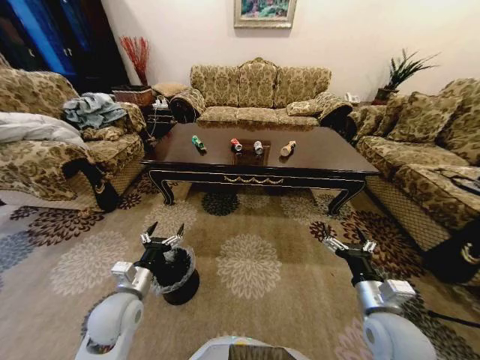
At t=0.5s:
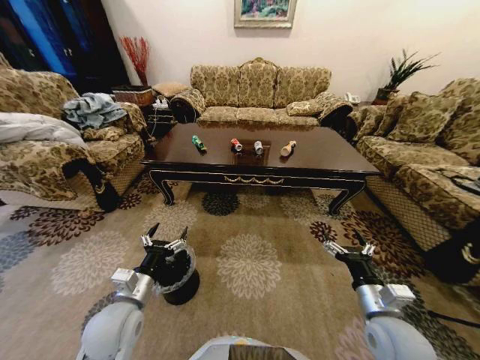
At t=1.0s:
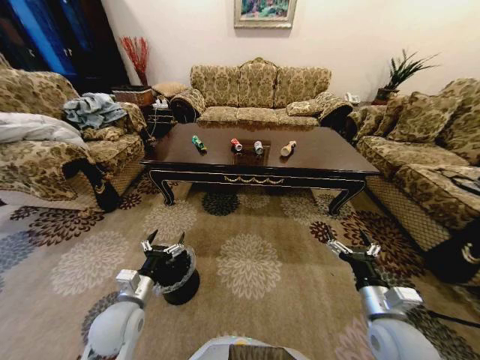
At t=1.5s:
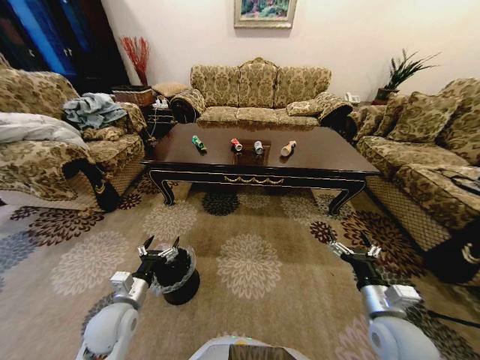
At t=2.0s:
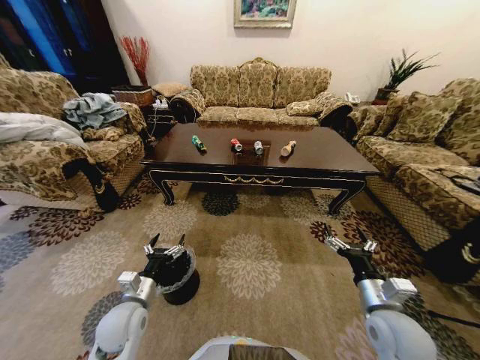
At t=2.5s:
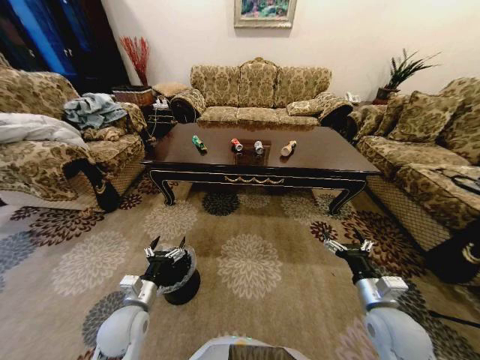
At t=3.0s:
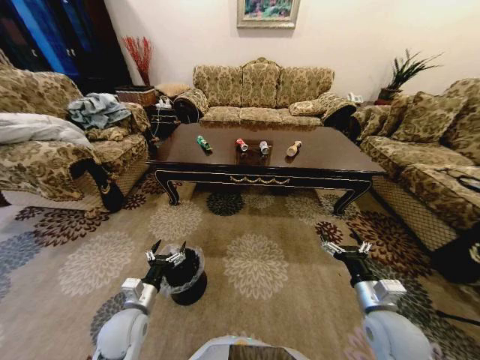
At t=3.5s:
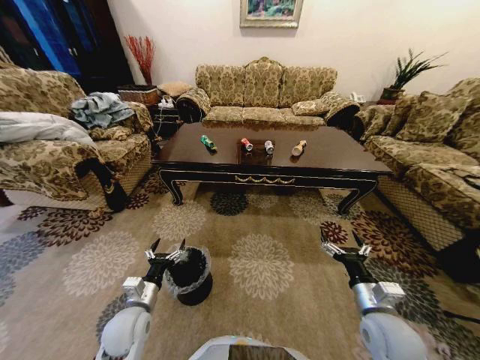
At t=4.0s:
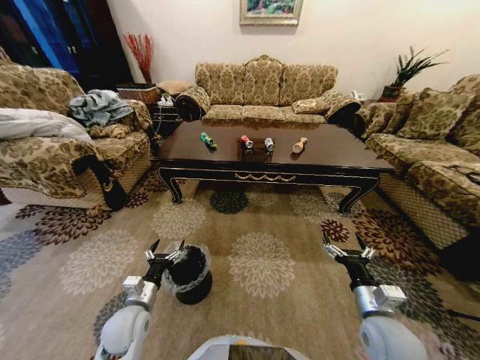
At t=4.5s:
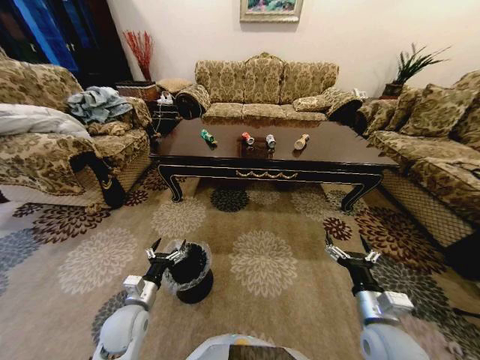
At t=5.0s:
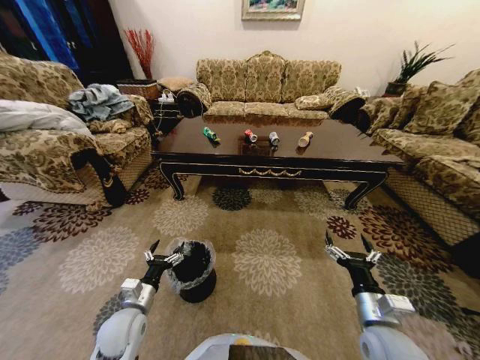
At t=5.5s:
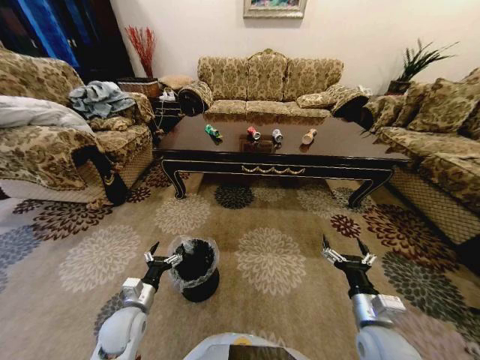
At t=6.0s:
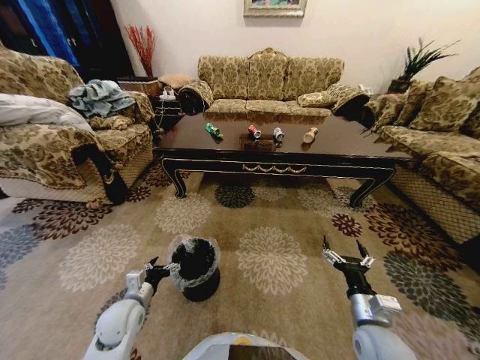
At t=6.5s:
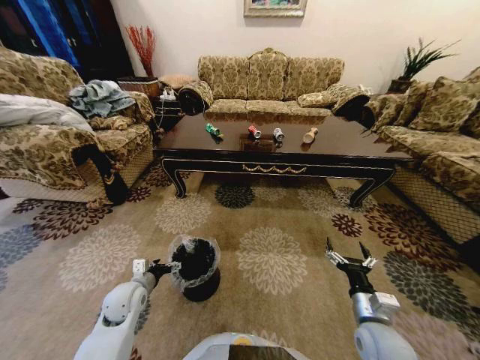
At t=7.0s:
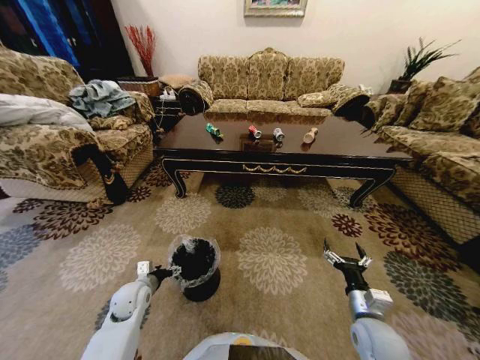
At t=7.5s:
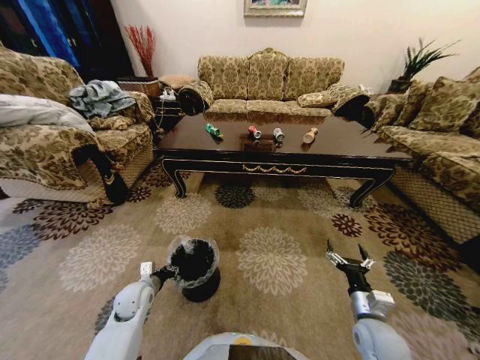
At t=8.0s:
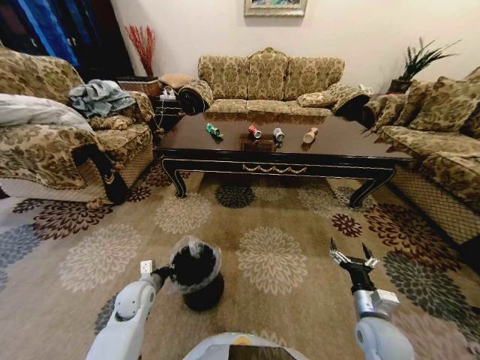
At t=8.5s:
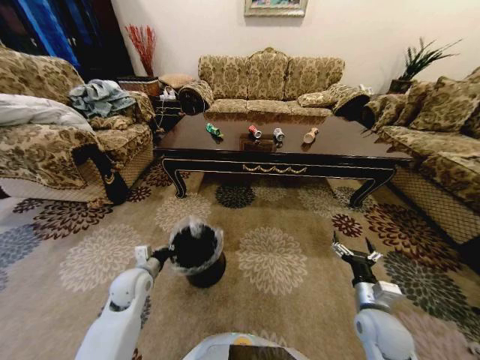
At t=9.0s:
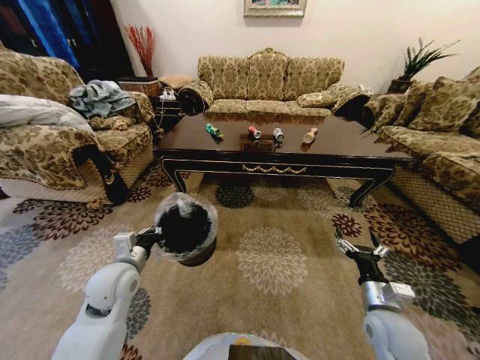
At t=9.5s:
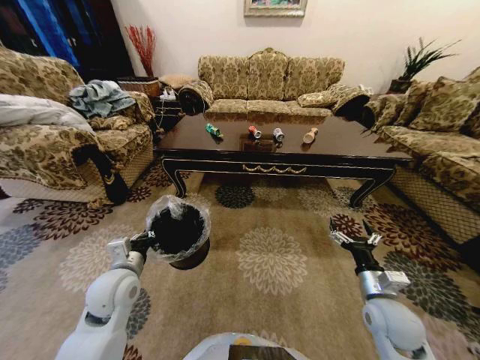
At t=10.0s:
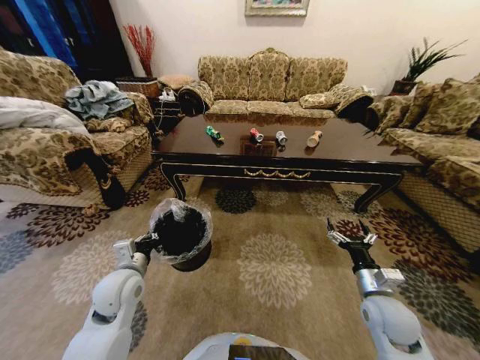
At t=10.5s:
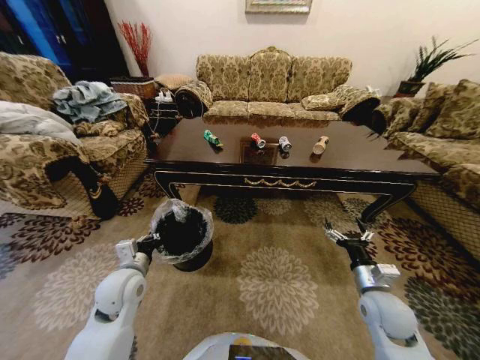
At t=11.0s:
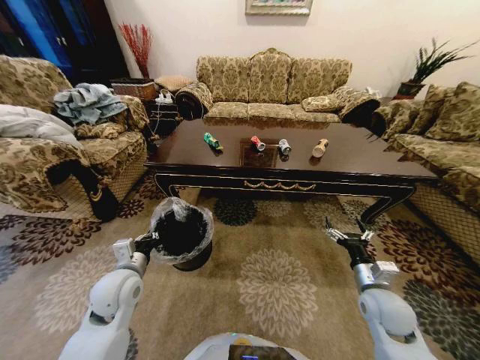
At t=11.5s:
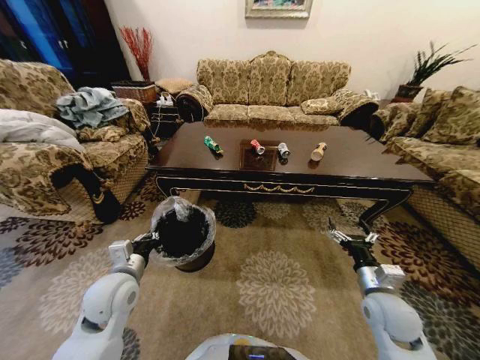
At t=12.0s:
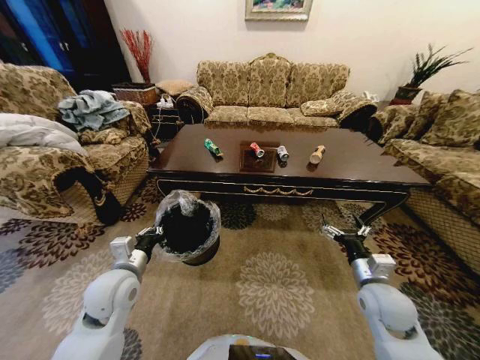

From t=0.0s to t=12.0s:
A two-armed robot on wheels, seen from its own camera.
Task of the whole recording: Move to the front of the table and place the trash on the table into the trash bin.
From t=6.0s to t=8.0s: The right gripper changes place by about 5 cm; the left gripper travels forward by about 5 cm, and closes.
From t=8.0s to t=10.0s: The left gripper moves upward, roughly 15 cm. Meanwhile the right gripper ends up roughly 5 cm from where it was.

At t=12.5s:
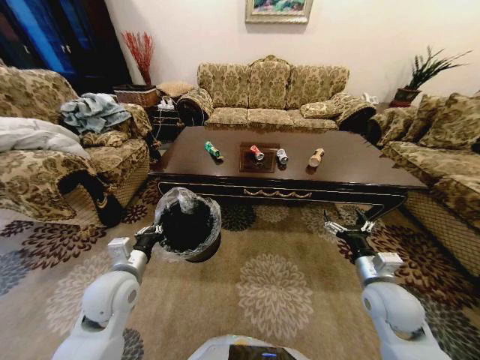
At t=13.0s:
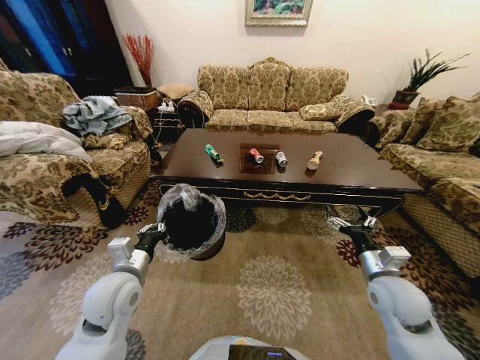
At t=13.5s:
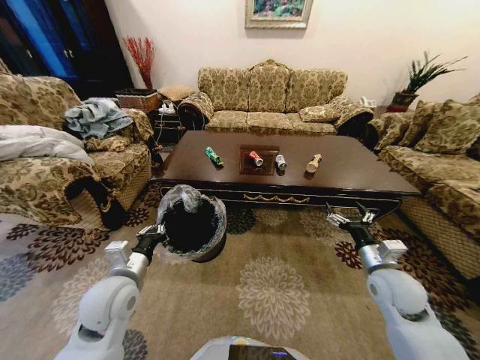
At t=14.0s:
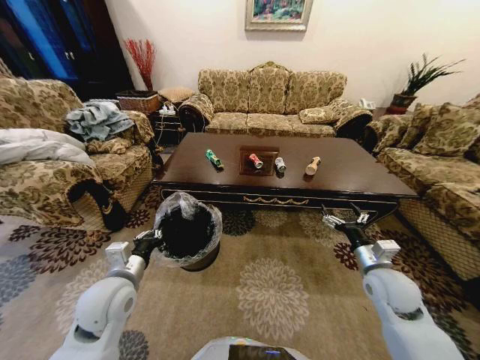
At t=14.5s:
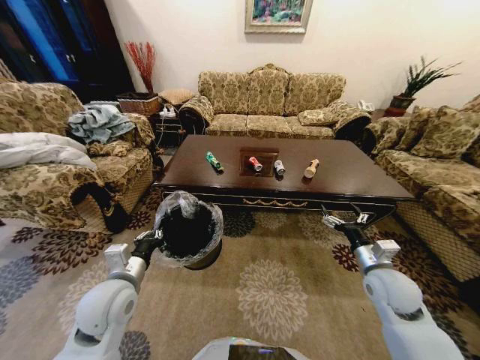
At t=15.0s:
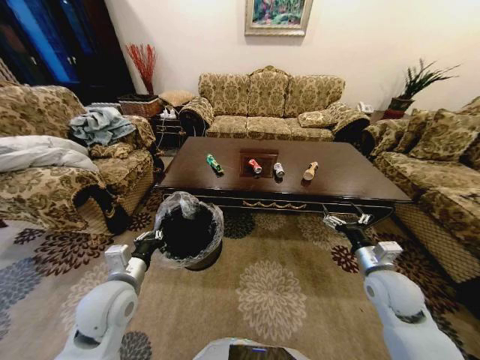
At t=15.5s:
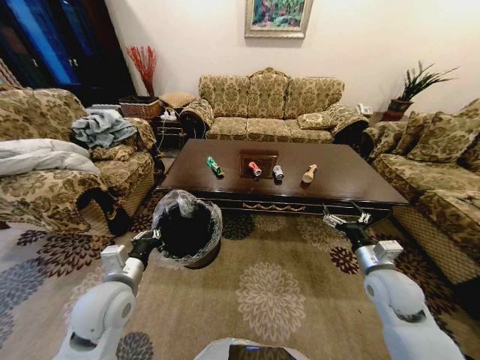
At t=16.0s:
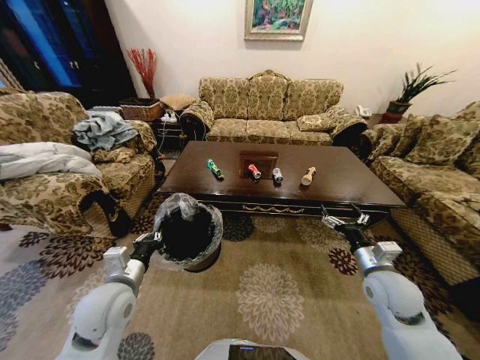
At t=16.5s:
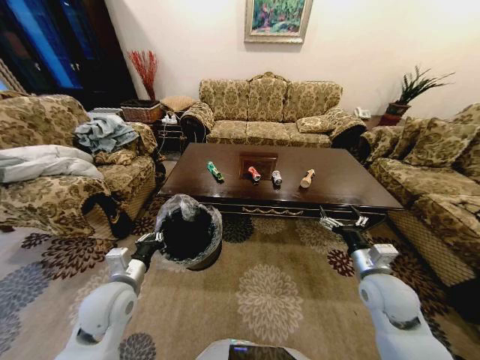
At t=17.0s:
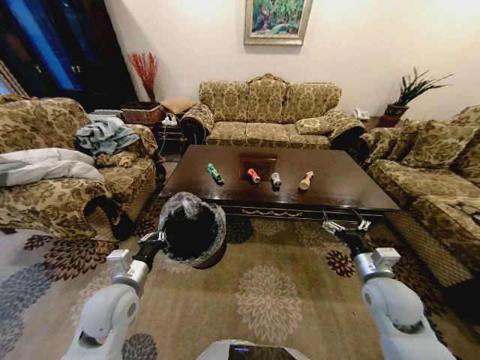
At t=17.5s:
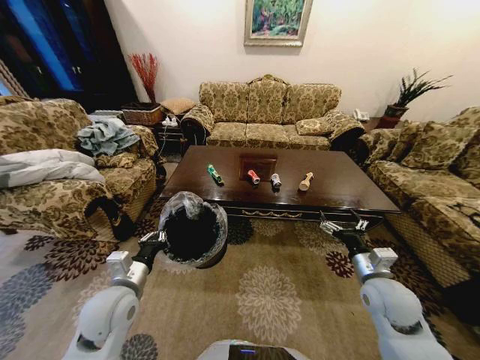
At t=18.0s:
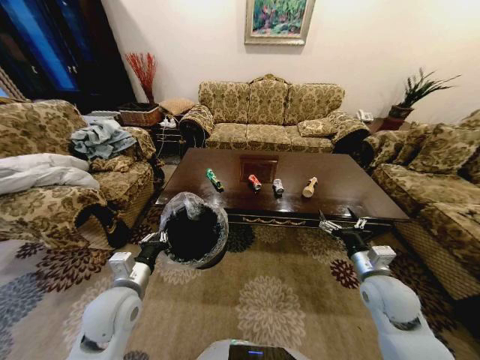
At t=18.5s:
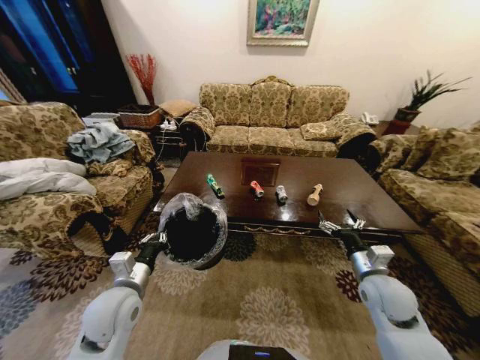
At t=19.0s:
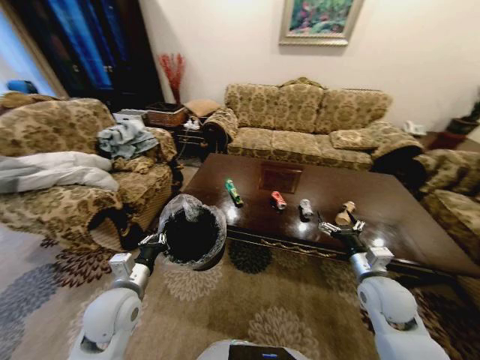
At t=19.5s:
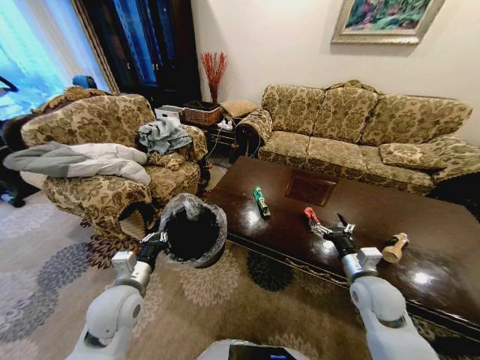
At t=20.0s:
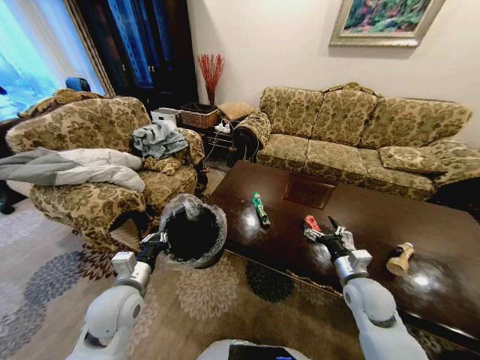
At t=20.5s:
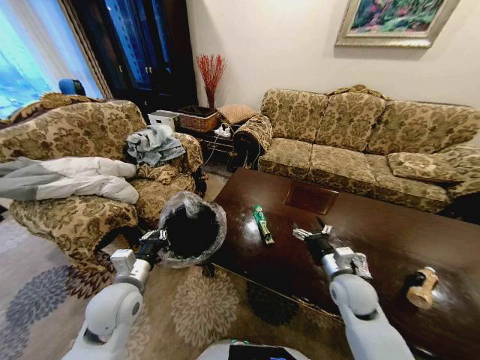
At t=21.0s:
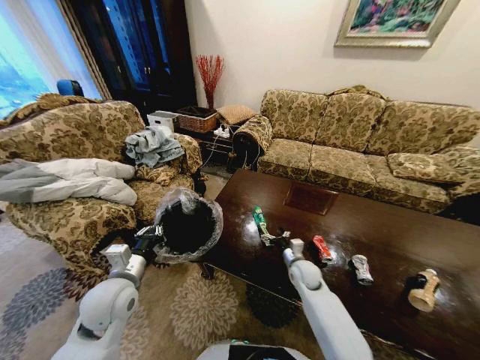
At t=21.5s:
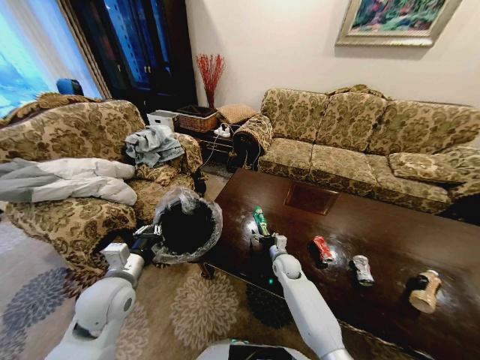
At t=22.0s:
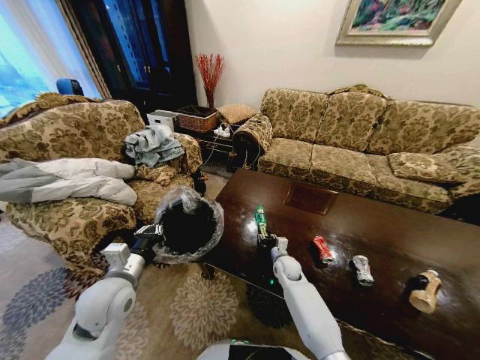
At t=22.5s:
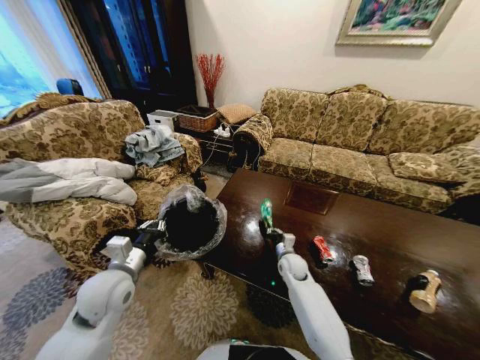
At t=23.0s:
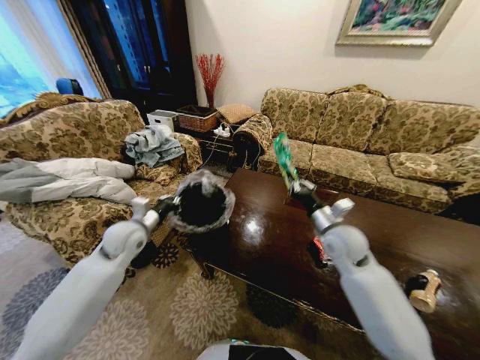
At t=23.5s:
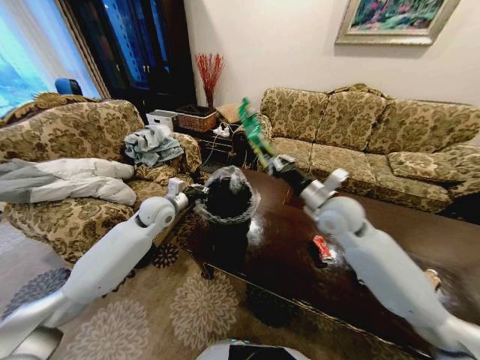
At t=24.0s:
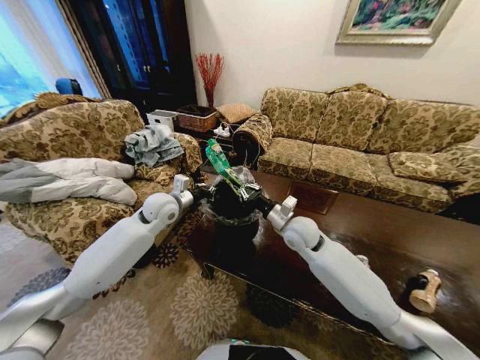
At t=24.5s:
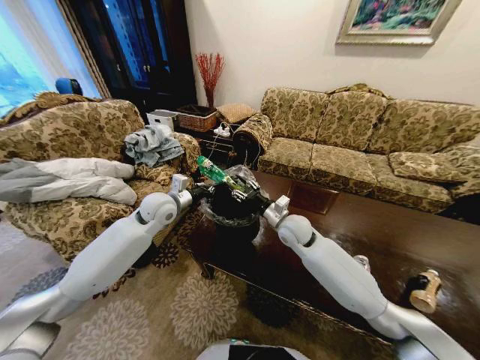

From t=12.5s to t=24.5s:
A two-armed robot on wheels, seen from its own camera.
Task of the whole recording: Move to the front of the table and place the trash on the table into the trash bin.
From t=18.5s to t=20.5s: The right gripper changes place by roughly 5 cm.
From t=20.5s to t=22.5s: The right gripper is displaced downward, forward and to the left by roughly 20 cm, and closes its fingers.
From t=22.5s to t=24.5s: The right gripper goes roughly 20 cm upward, and opens up. Meanwhile the left gripper shifts roughly 20 cm forward.

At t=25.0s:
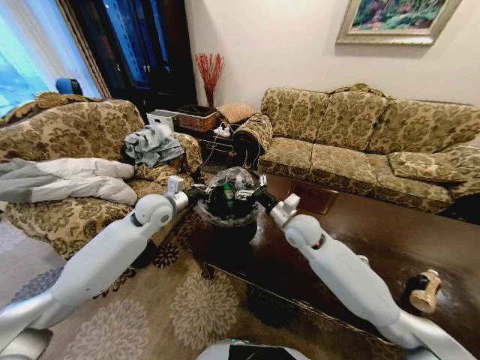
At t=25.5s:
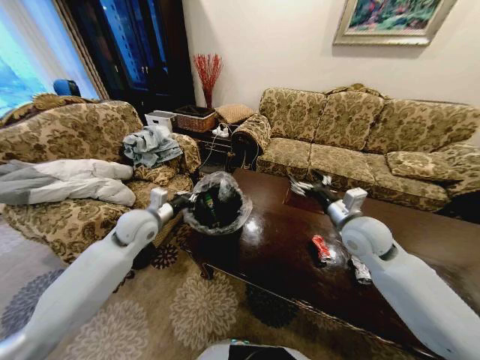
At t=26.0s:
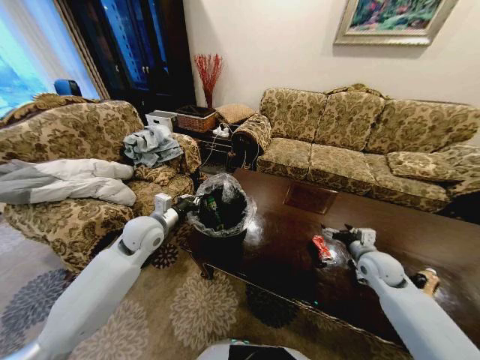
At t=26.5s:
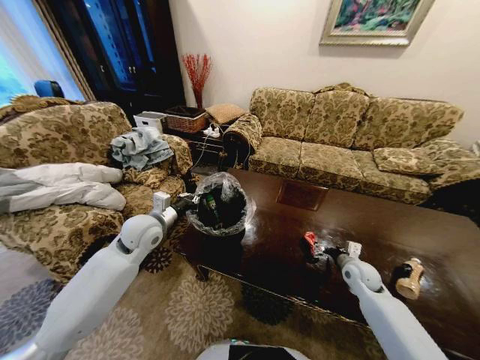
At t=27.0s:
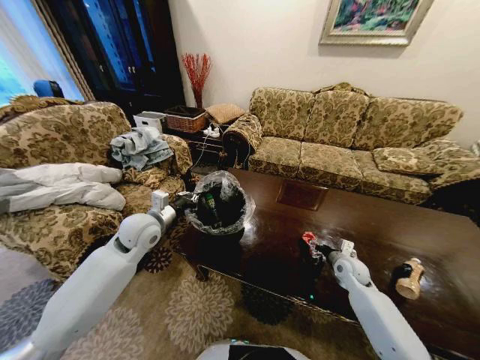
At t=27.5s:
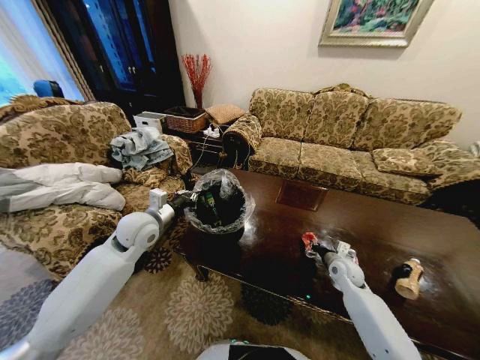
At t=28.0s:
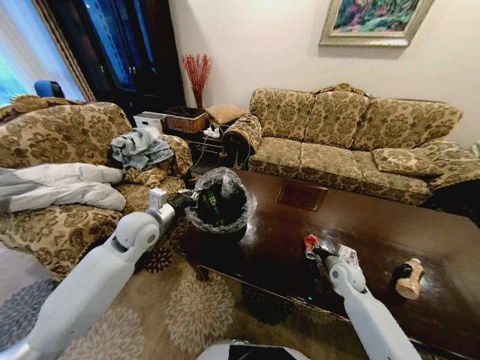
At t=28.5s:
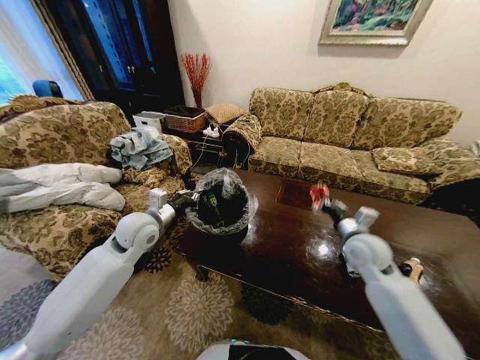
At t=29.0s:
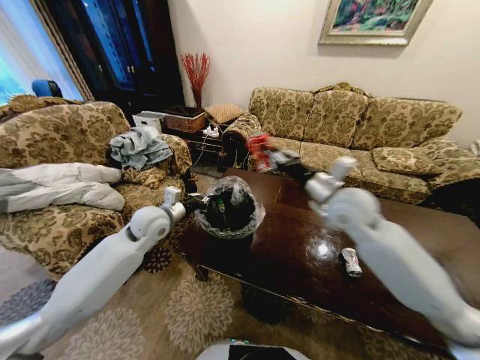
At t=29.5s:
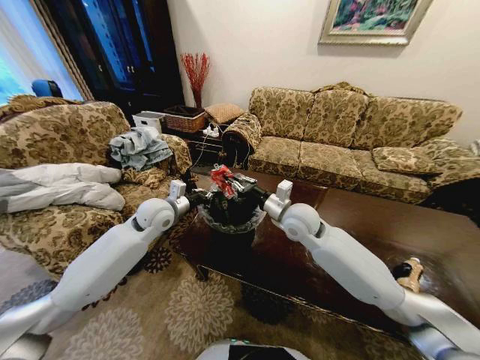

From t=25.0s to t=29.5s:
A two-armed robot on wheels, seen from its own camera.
Task of the whole recording: Move to the front of the table and place the trash on the table into the trash bin.
From t=25.0s to t=27.0s: The left gripper goes about 5 cm backward. The right gripper shifts some 25 cm to the right and downward.
From t=27.0s to t=29.5s: The right gripper moves to the left and upward, some 35 cm, and closes. Meanwhile the left gripper ends up roughly 5 cm from where it was.
